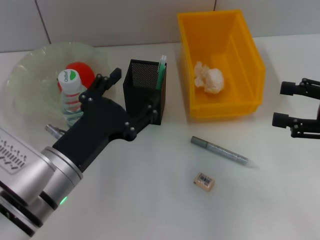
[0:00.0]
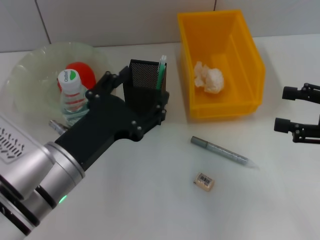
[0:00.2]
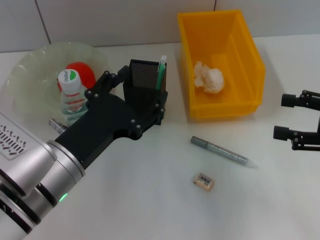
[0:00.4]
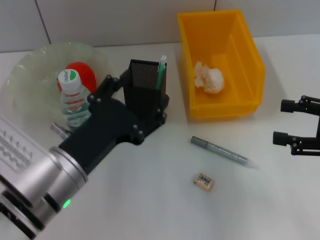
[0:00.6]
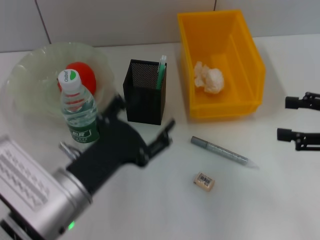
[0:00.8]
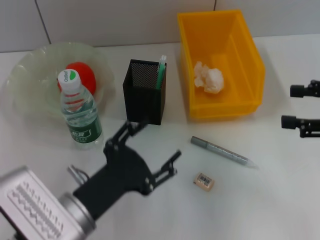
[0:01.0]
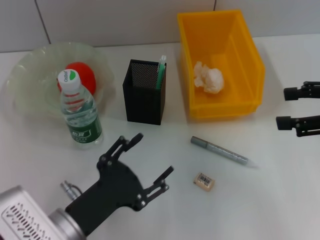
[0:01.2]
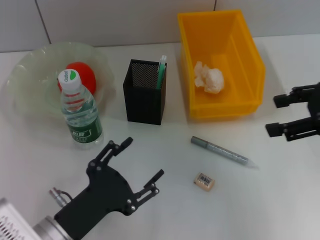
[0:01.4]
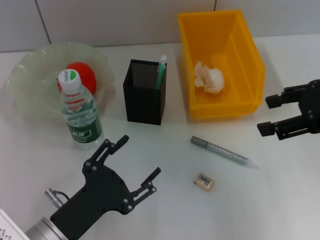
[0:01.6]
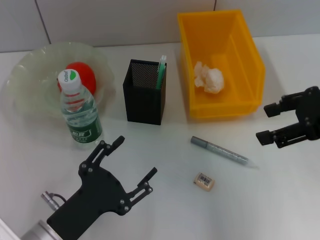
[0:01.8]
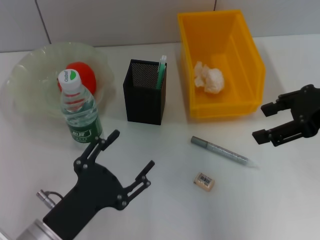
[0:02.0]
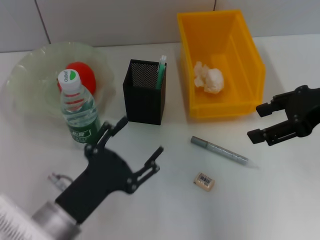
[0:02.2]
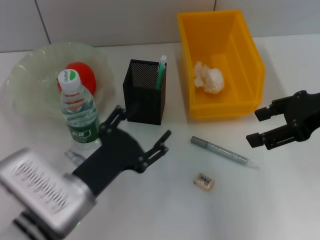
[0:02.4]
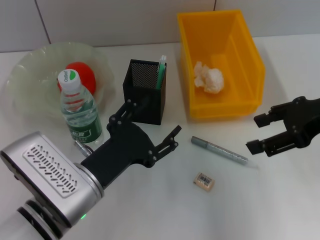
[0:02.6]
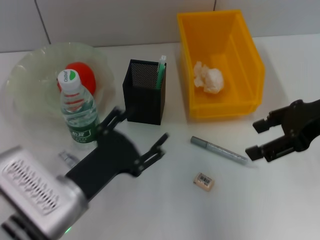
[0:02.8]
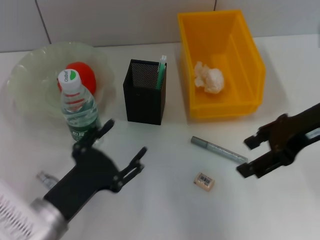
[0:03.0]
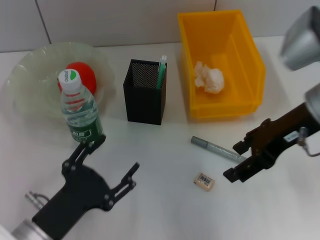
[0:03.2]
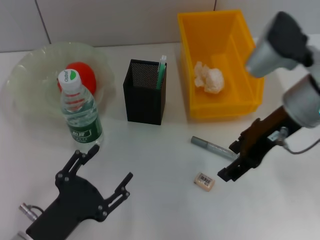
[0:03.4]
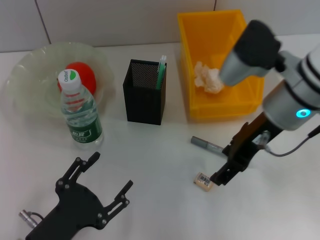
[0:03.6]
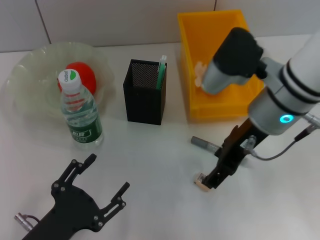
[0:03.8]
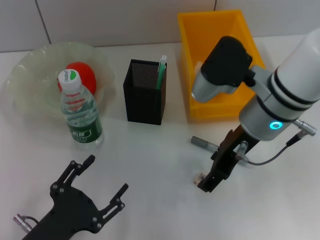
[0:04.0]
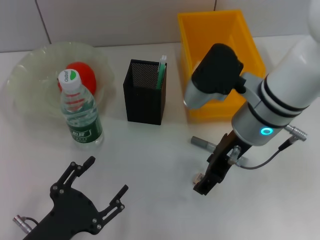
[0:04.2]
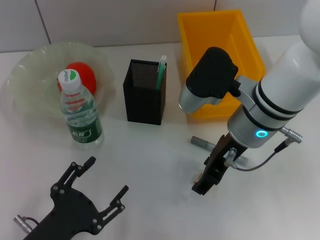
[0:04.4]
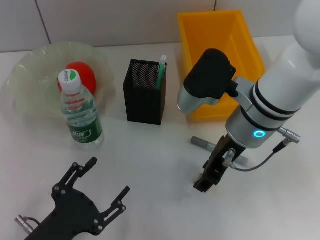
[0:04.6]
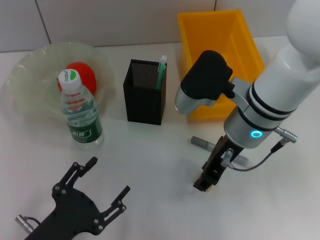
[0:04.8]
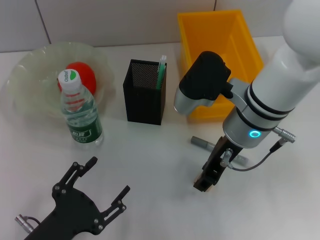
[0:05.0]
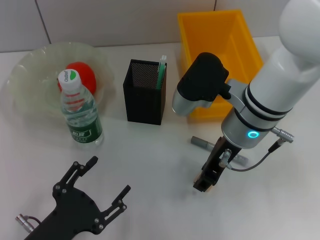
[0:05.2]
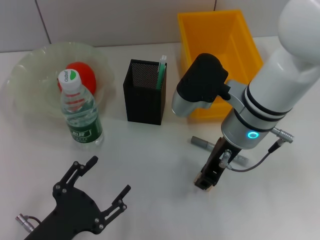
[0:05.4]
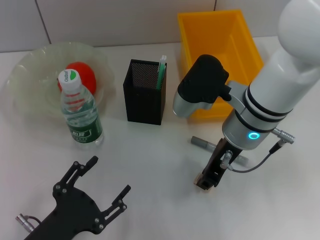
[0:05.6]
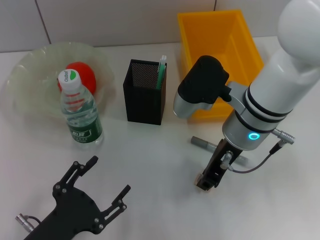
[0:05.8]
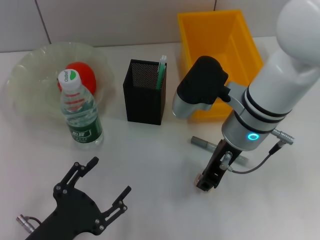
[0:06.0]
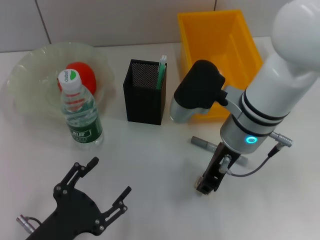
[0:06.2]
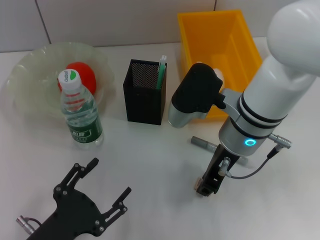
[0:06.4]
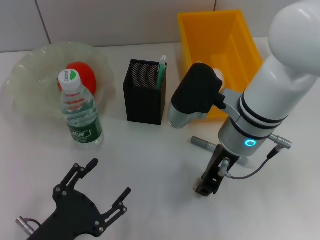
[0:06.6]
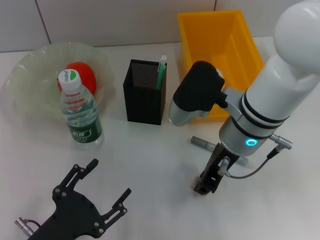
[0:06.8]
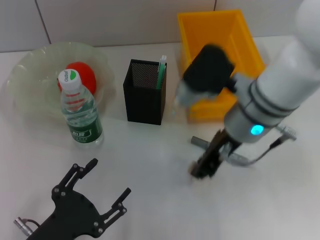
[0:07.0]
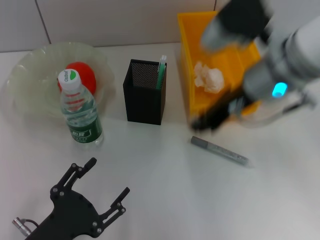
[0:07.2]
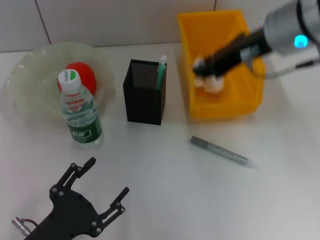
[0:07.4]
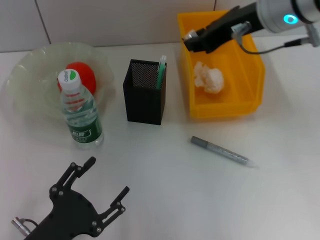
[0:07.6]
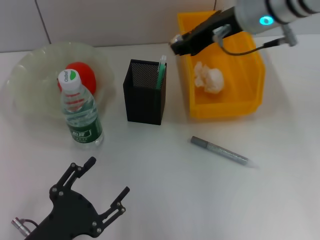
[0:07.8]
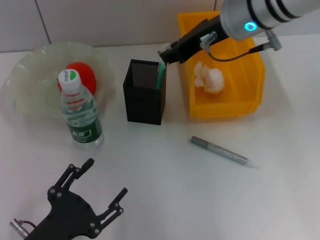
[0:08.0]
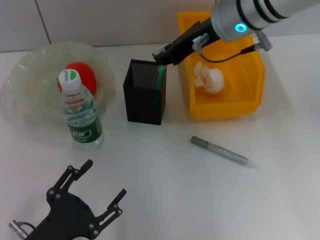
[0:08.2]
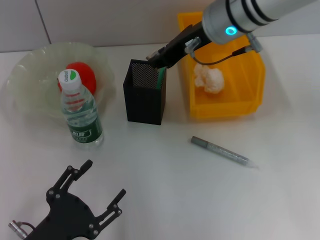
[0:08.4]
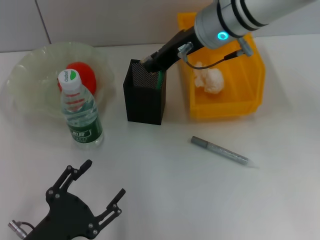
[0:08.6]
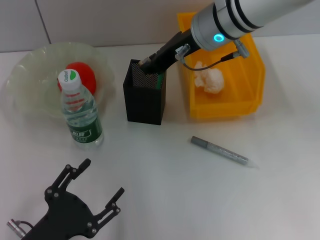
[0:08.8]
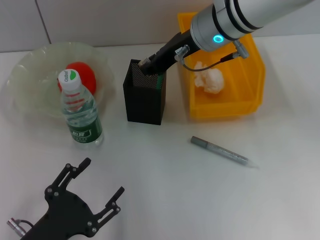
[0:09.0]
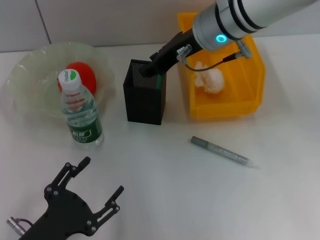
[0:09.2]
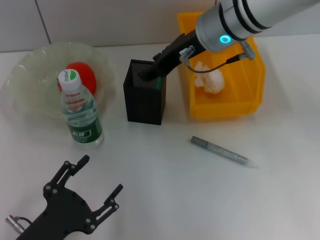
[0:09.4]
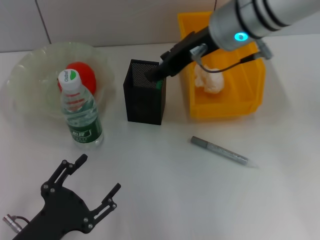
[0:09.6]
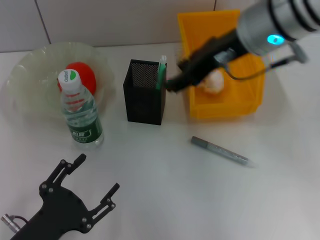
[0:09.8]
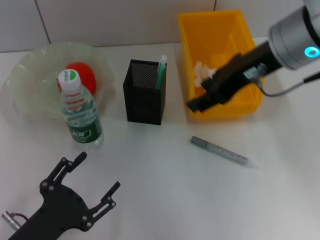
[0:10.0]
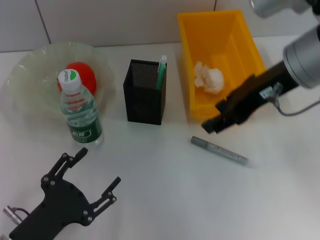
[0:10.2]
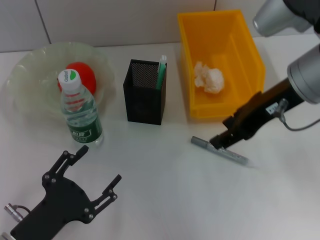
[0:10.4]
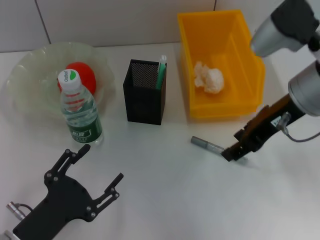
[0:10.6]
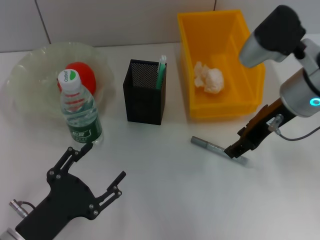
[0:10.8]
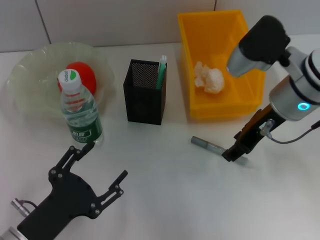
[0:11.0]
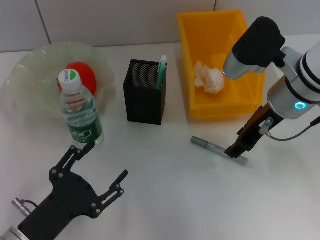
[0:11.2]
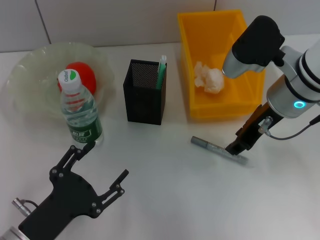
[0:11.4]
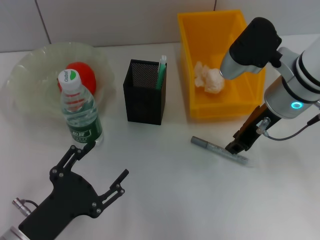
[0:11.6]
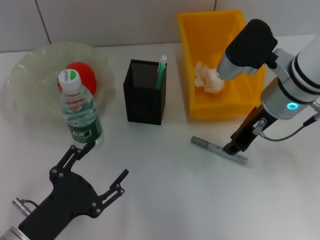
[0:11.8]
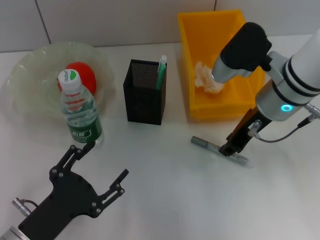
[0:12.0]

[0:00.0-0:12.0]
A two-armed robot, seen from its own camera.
Step, 0:00.0 to 0:06.2: Grab the eraser with the right hand.
Step, 0:06.4 to 0:09.4: Put the eraser into the pen holder with the right hand.
0:00.0 to 0:01.6: The left gripper heads backward and downward, covering about 10 cm. Meanwhile the right gripper heads upward, covering some 5 cm.
0:01.6 to 0:03.0: The right gripper is displaced to the left by some 5 cm.
0:03.0 to 0:04.4: The left gripper moves about 5 cm. The right gripper is displaced to the left by roughly 15 cm.
0:04.4 to 0:06.0: The right gripper closes up.
0:06.0 to 0:07.6: The right gripper moves upward, roughly 10 cm.
0:07.6 to 0:09.0: The right gripper travels to the left, downward and forward by about 10 cm.
0:09.0 to 0:10.4: The right gripper travels backward and to the right by some 15 cm.
0:10.4 to 0:12.0: The right gripper goes some 5 cm downward, and closes its fingers.

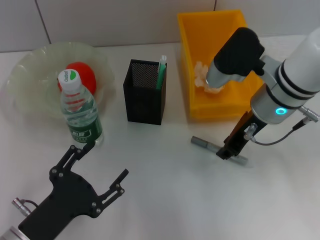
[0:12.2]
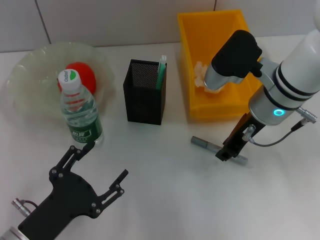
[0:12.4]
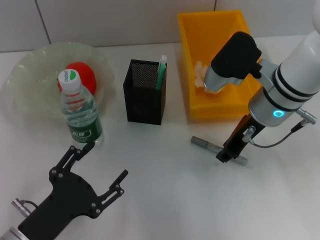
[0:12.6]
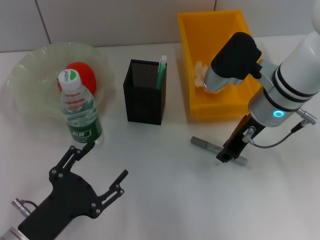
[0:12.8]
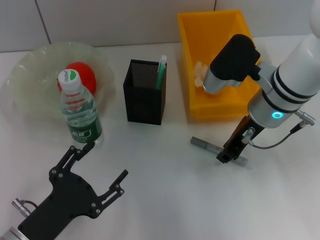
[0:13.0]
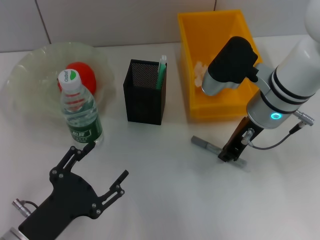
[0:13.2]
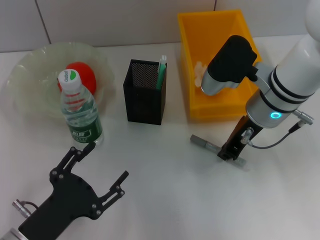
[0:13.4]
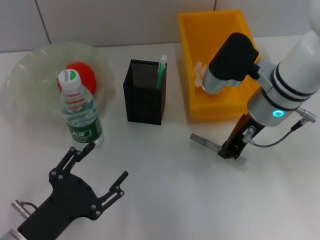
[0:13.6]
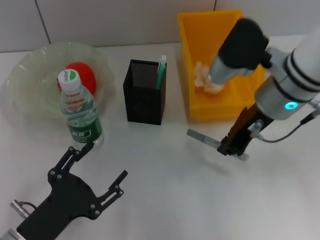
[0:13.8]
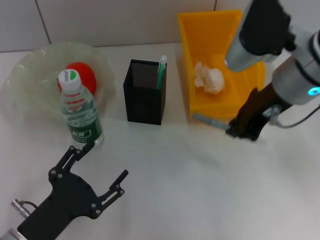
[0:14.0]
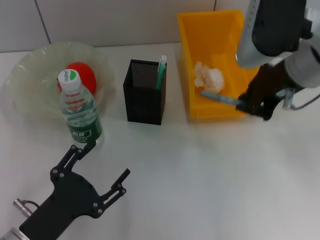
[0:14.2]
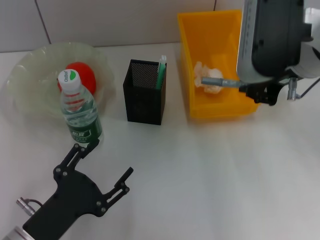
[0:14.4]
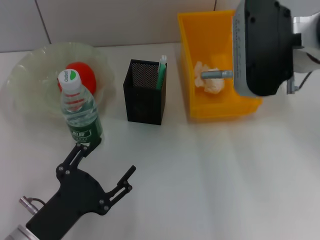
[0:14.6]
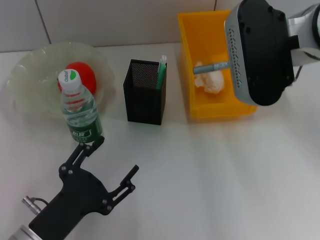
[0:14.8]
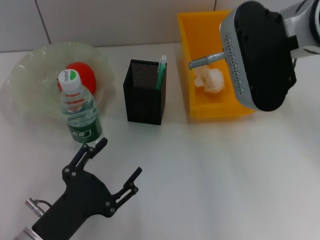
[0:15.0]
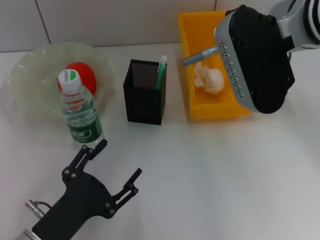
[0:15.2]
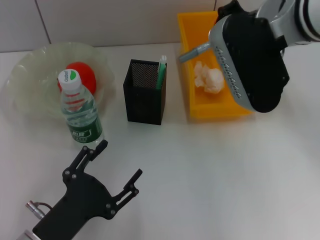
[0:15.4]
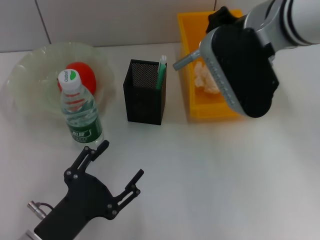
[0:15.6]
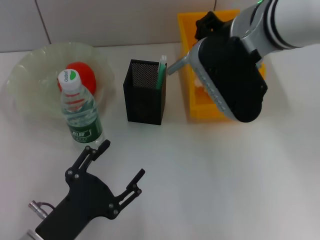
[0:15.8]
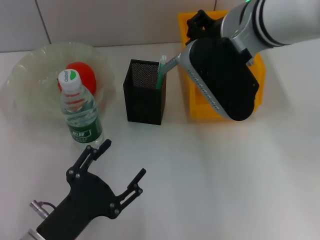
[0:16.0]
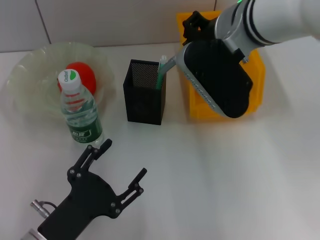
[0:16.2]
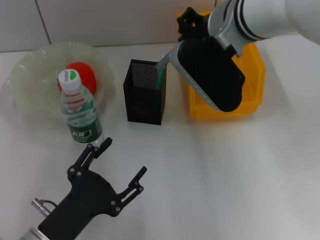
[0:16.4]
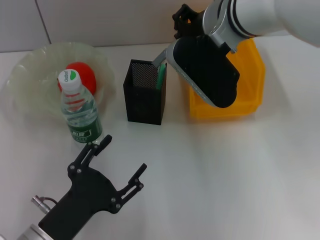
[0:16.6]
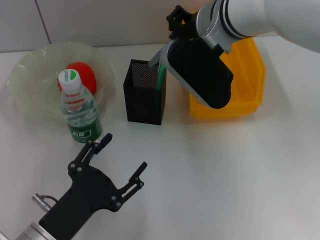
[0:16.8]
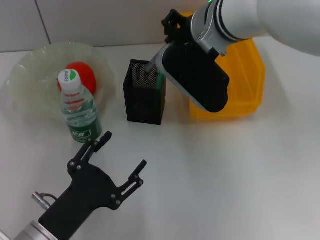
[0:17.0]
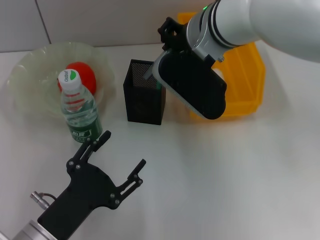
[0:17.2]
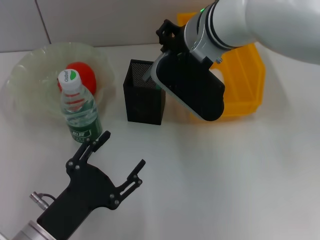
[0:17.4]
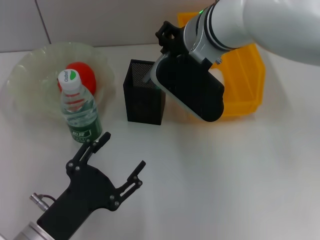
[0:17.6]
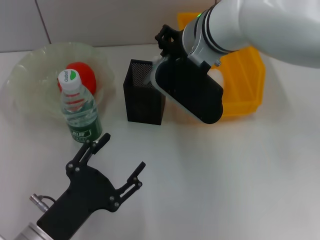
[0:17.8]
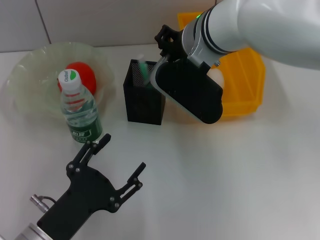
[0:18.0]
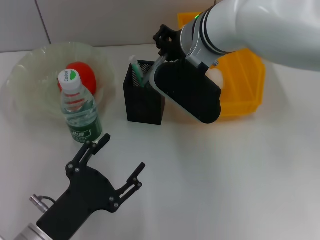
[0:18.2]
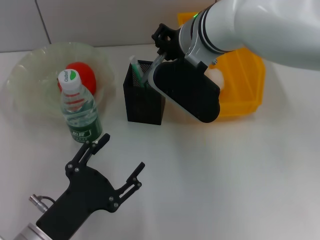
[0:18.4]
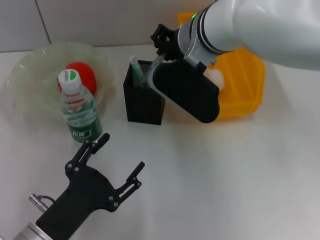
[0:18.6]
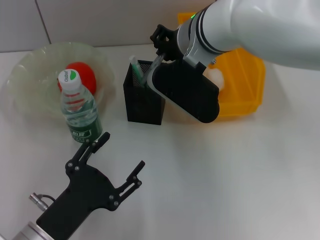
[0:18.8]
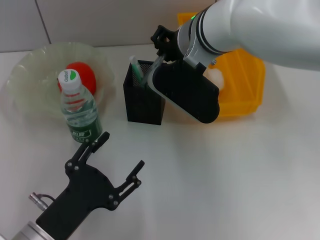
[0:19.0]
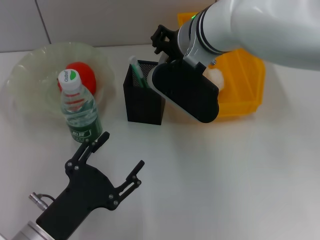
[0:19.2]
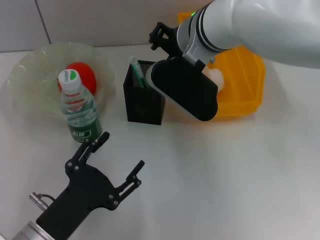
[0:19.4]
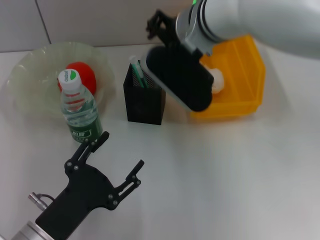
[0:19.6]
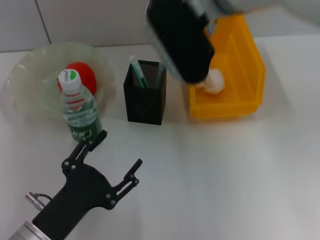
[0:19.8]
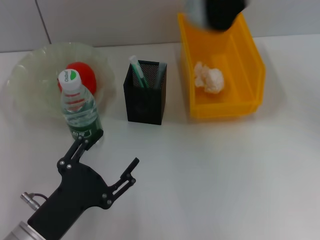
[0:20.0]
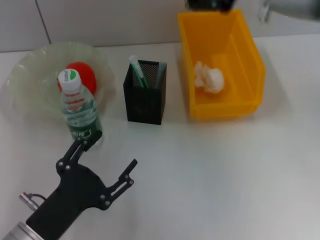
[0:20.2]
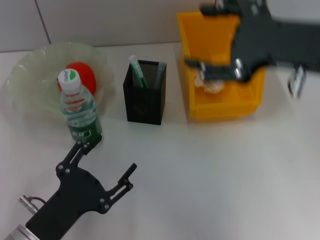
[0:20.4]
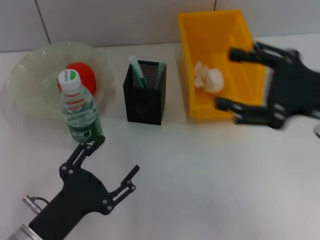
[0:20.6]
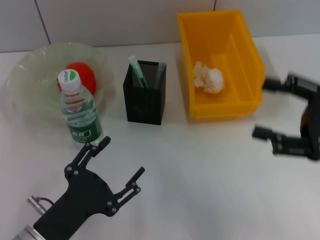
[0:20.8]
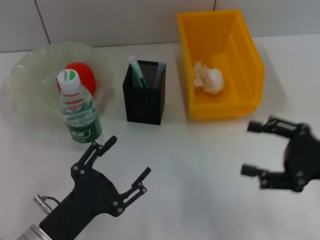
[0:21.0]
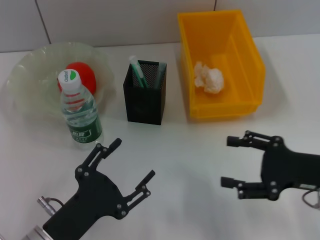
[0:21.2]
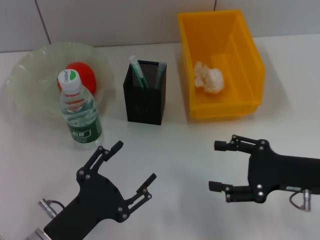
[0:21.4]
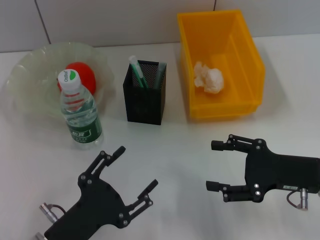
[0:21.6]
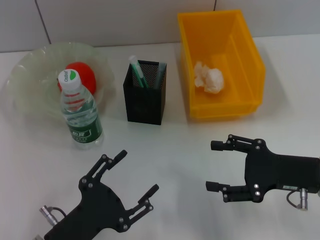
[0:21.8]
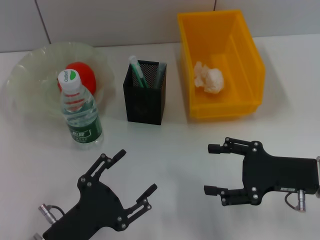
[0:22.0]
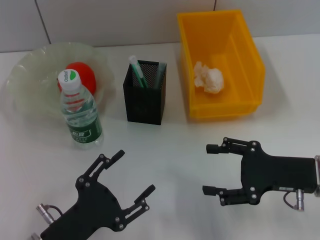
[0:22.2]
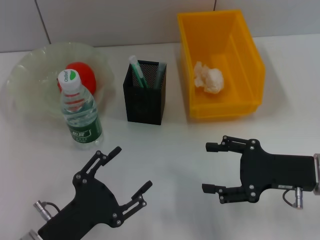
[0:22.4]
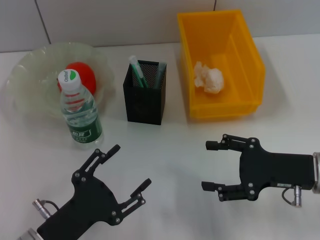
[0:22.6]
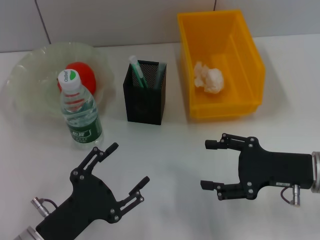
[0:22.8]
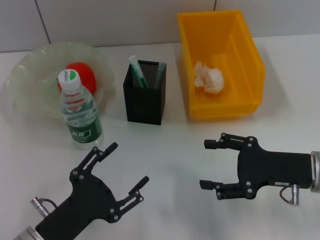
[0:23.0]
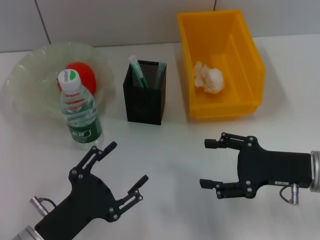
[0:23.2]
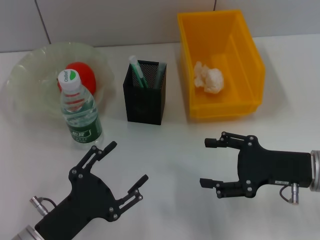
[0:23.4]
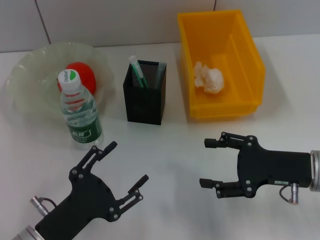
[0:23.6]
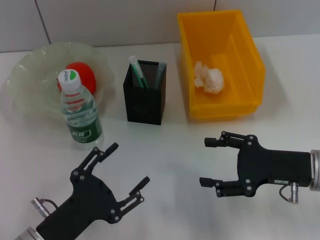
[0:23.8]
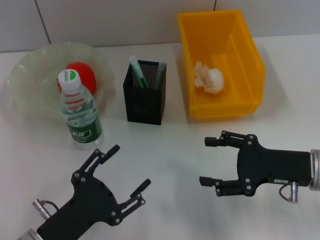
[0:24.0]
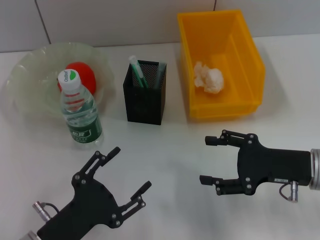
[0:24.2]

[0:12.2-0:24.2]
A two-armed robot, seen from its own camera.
Step, 0:13.4 to 0:19.2: Place the gray glue into the pen holder with the right hand.
0:12.2 to 0:13.8: The grippers make only small movements.
0:13.8 to 0:15.2: The right gripper travels upward by roughly 10 cm.
0:15.2 to 0:16.6: The right gripper goes approximately 10 cm forward and to the left.
0:16.6 to 0:18.2: There are only small adjustments of the grippers.
0:18.2 to 0:19.8: The right gripper travels upward by about 5 cm, and opens.
0:19.8 to 0:21.2: The right gripper is displaced to the right, downward and backward by roughly 30 cm, and opens its fingers.
0:21.2 to 0:22.6: There are only small adjustments of the grippers.
0:22.6 to 0:24.2: Both grippers stay put.
